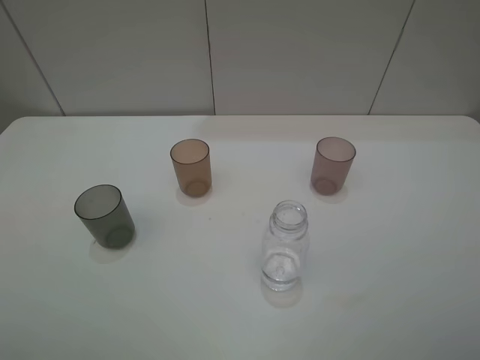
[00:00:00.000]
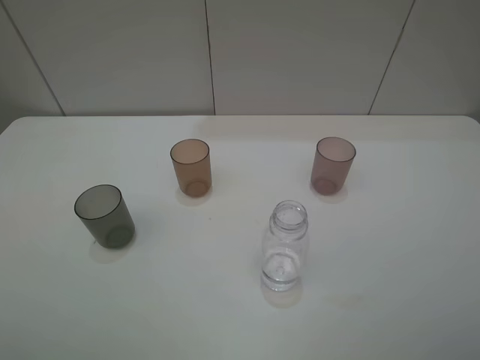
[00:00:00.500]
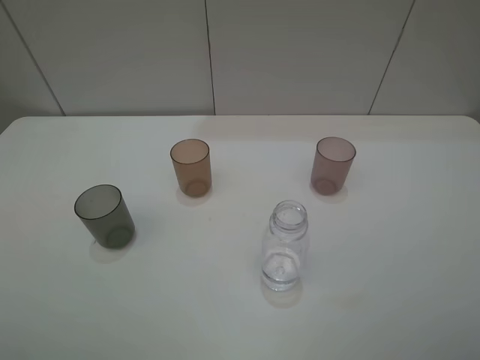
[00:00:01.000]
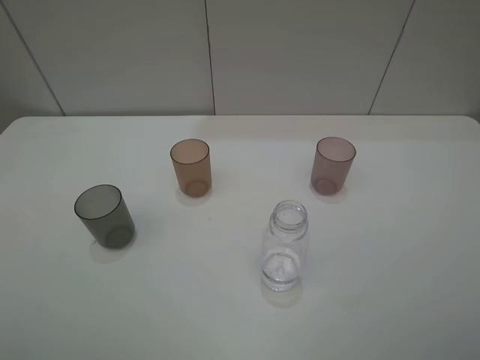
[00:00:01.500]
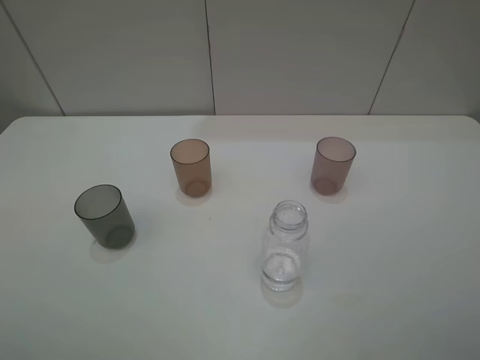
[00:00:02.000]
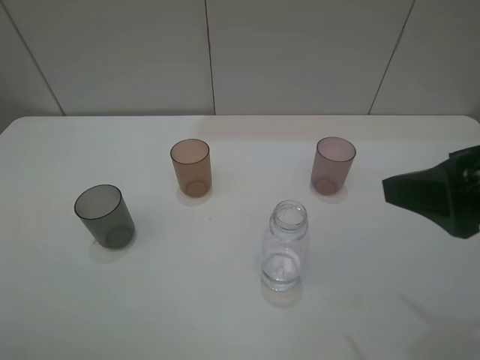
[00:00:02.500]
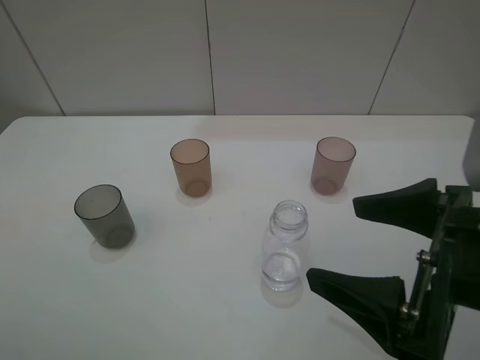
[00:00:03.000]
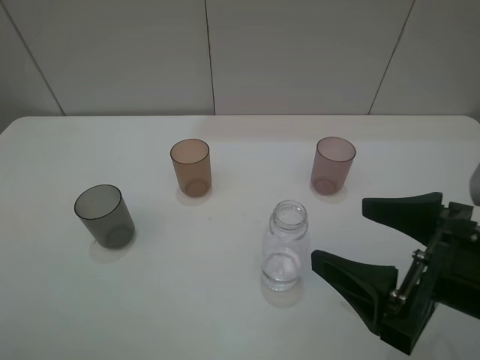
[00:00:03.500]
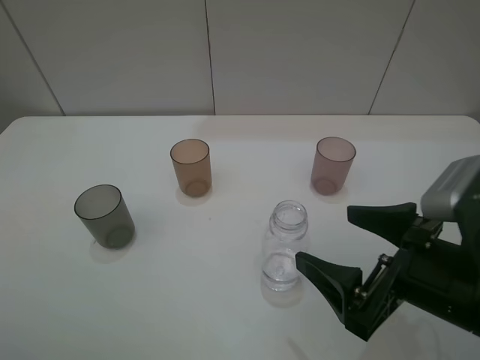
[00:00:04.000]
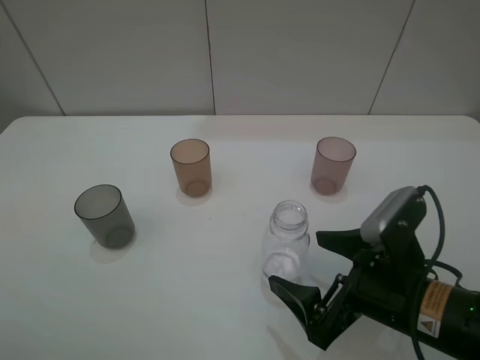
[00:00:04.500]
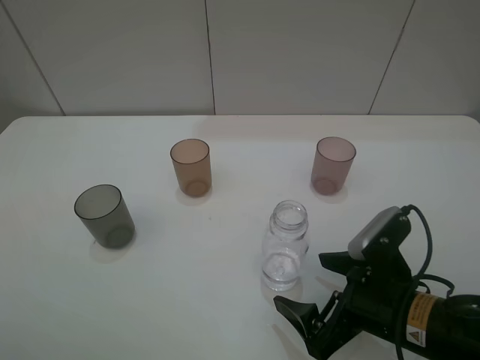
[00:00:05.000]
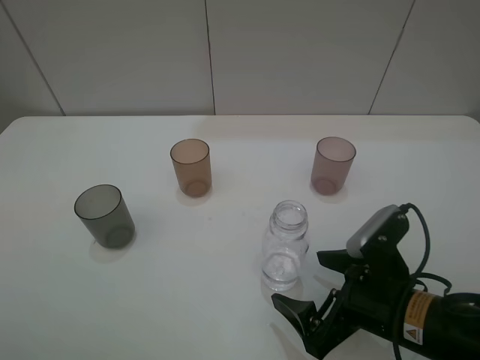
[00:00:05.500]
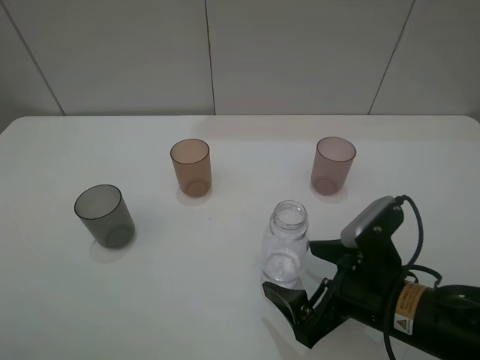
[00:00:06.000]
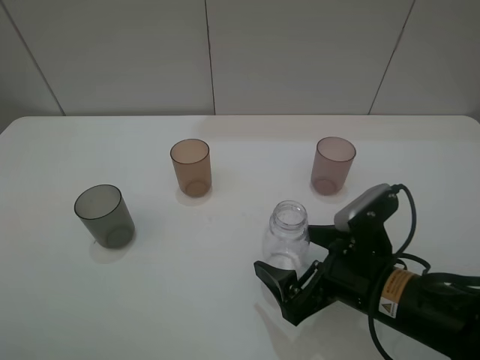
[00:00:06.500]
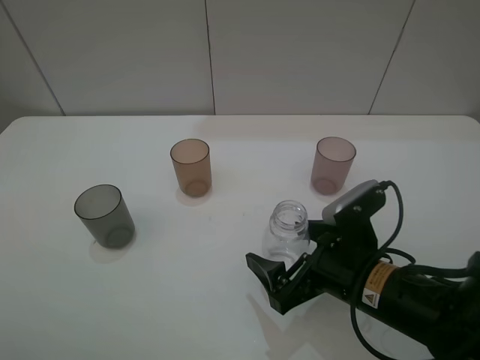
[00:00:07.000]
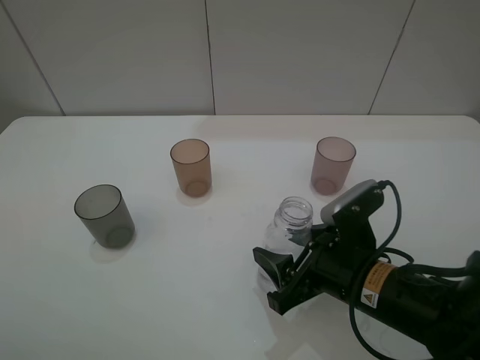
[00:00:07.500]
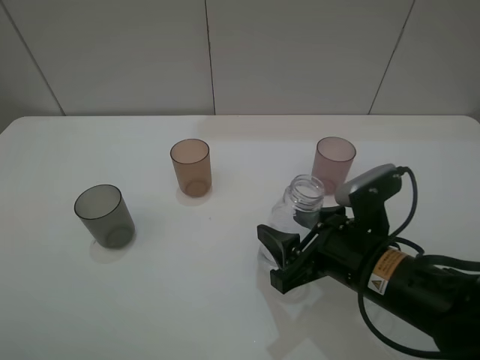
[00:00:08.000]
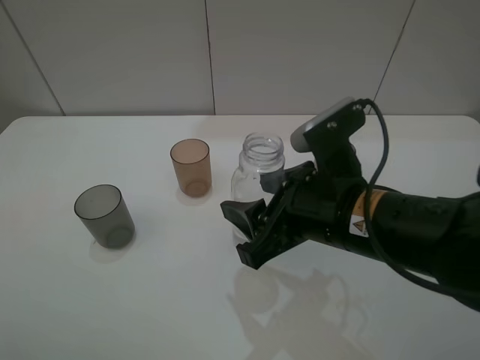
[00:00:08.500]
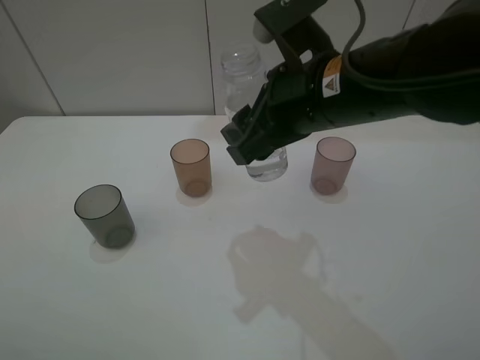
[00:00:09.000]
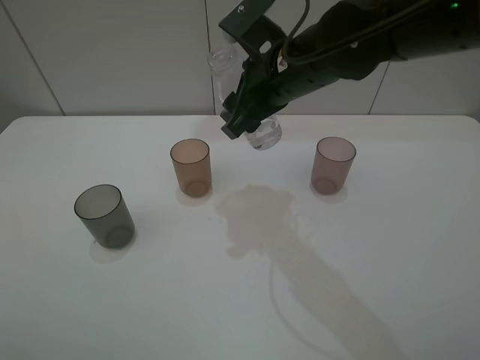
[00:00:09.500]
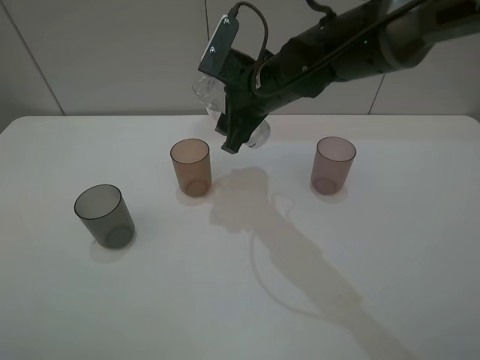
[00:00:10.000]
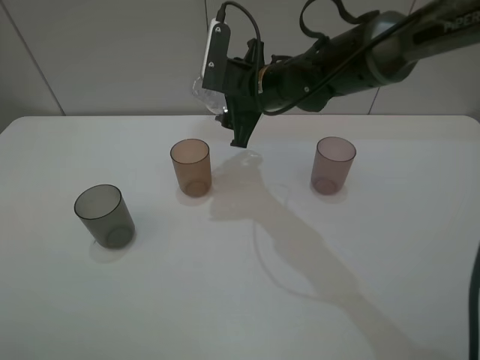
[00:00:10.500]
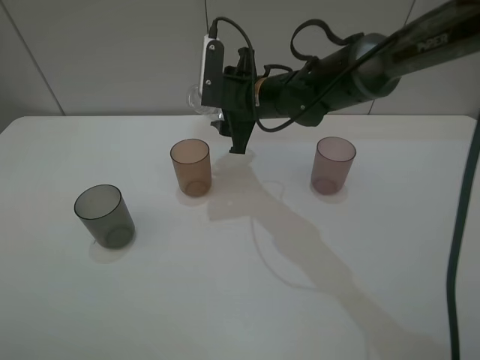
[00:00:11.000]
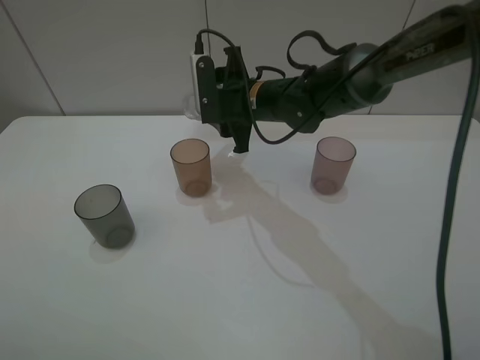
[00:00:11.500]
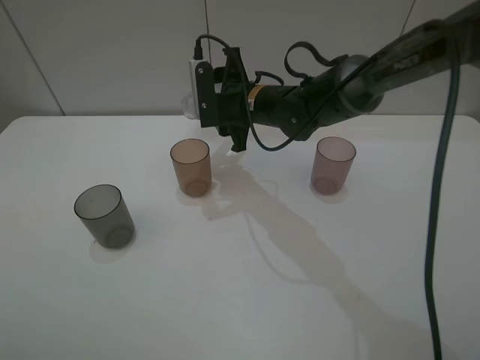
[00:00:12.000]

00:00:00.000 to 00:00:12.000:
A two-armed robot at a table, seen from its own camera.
Task of the whole recording: pick up the bottle filled with water and pour water into the middle cup of the three cups.
Step, 00:00:00.000 to 00:00:07.500: Grasp the transparent bottle with the right gripper.
00:00:02.000 to 00:00:04.000: The right gripper goes about 15 cm downward and to the left.
00:00:04.000 to 00:00:06.000: The right gripper travels downward by some 5 cm.
00:00:06.000 to 00:00:08.000: The right gripper closes up.
00:00:08.000 to 00:00:10.000: The right gripper travels forward, to the left and upward by some 25 cm.
00:00:10.000 to 00:00:12.000: The right gripper changes place by some 5 cm.

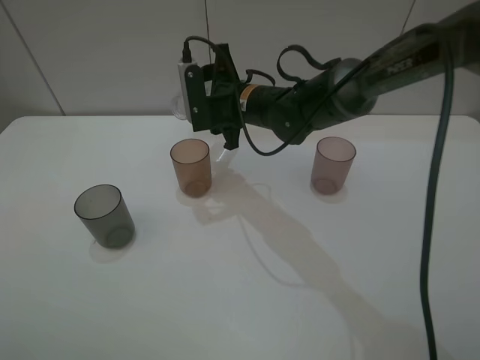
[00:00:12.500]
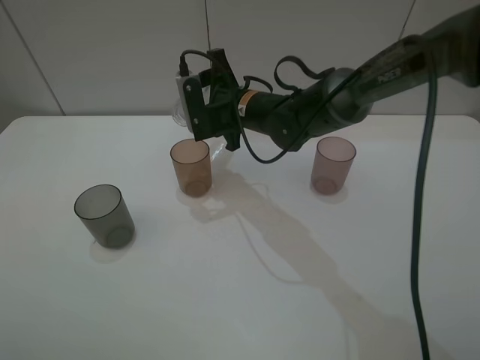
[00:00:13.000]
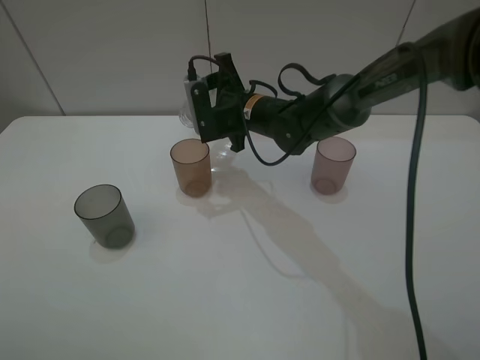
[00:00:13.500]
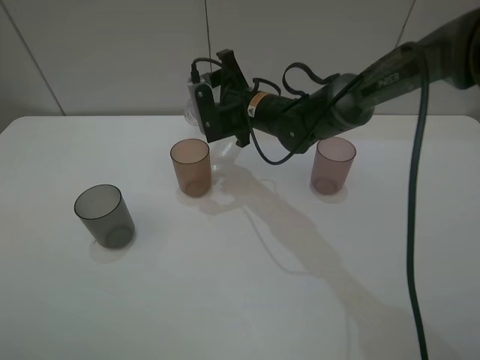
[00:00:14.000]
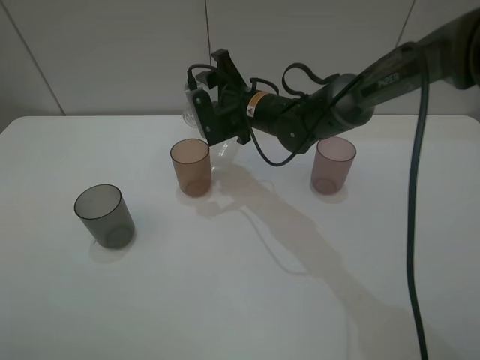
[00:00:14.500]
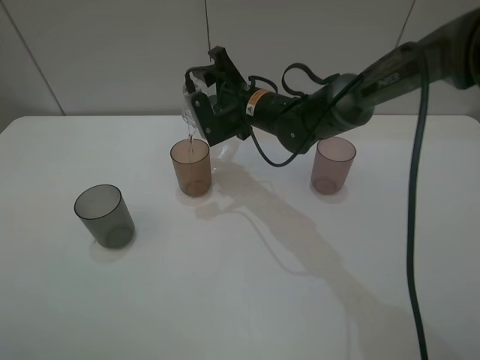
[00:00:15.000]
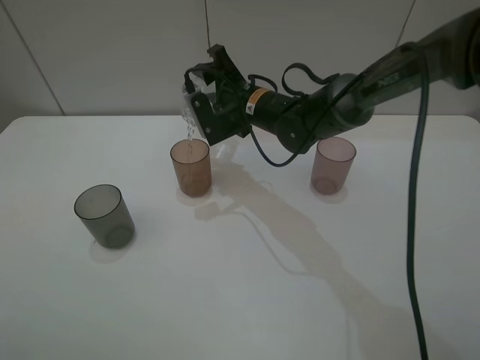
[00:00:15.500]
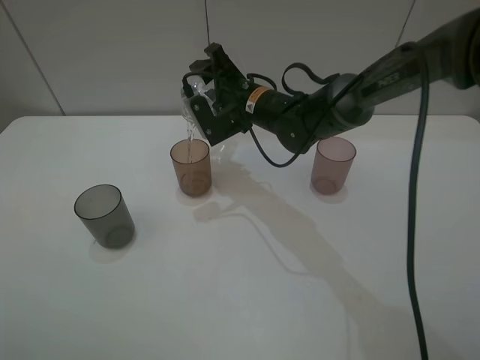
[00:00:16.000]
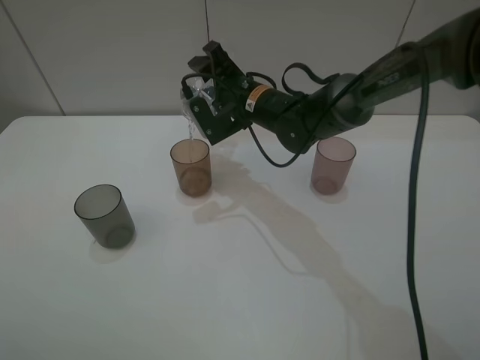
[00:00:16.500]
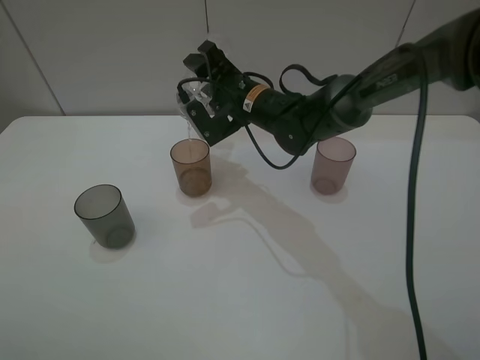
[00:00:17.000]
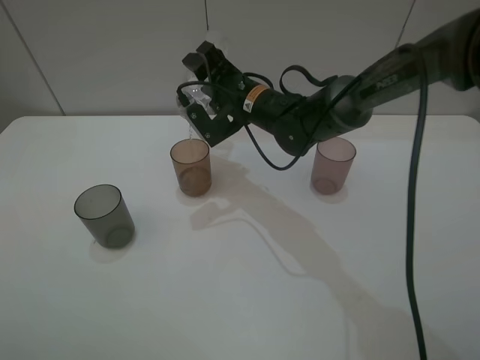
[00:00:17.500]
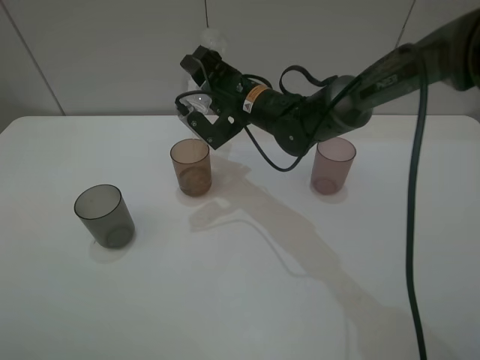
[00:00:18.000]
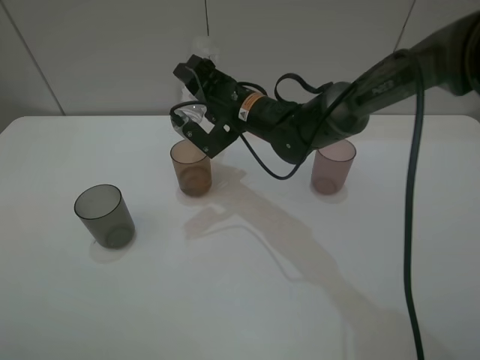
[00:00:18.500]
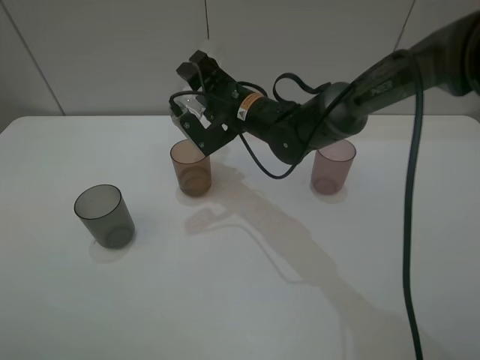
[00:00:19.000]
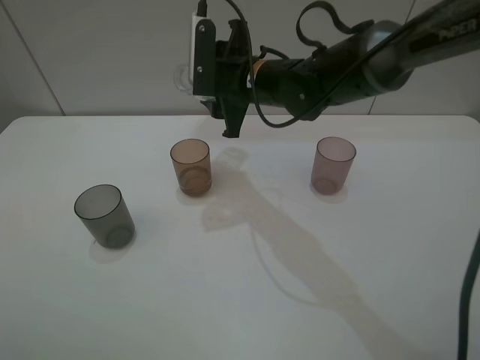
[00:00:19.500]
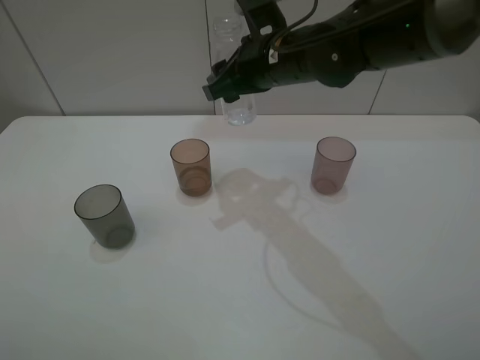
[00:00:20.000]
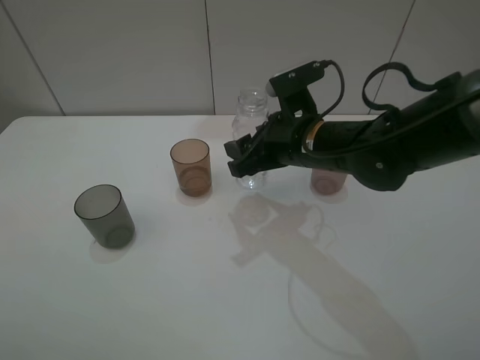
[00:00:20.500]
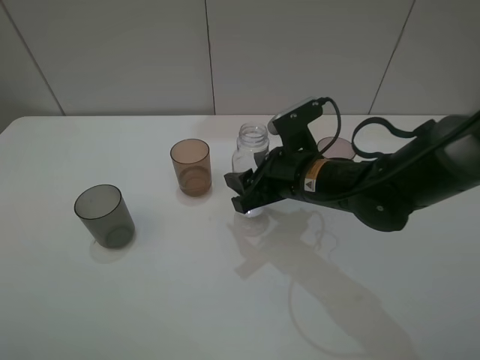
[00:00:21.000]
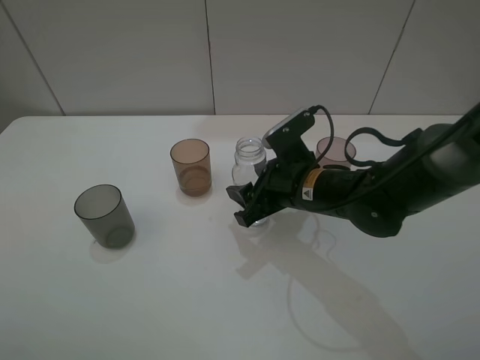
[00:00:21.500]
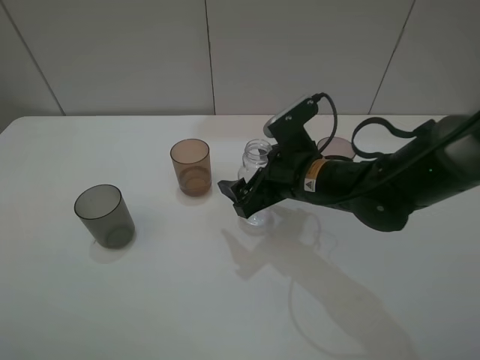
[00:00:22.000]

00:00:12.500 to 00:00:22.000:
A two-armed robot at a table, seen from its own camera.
Task of the whole recording: pick up the bottle filled with water and pour water into the middle cup of the three cups.
Step, 00:00:12.500 to 00:00:14.500: Pour water from transparent bottle tobrown cup with the right gripper.
00:00:12.500 to 00:00:14.500: The grippers move only a little.
00:00:14.500 to 00:00:16.500: The grippers make only small movements.
00:00:16.500 to 00:00:18.000: The grippers stay close to where they were, moving slightly.
00:00:18.000 to 00:00:20.000: The right gripper shifts roughly 10 cm upward.
00:00:20.000 to 00:00:22.000: The right gripper is displaced downward and backward by approximately 15 cm, and opens up.

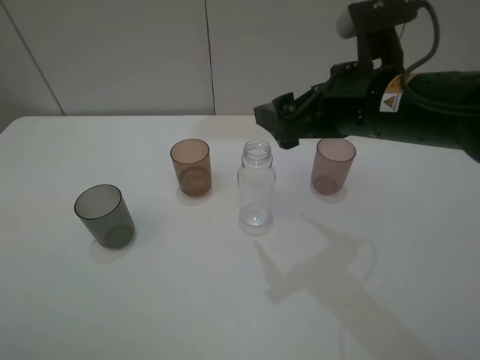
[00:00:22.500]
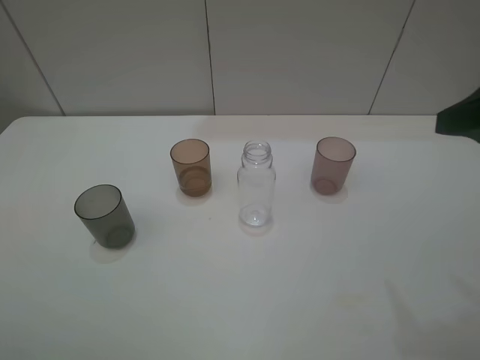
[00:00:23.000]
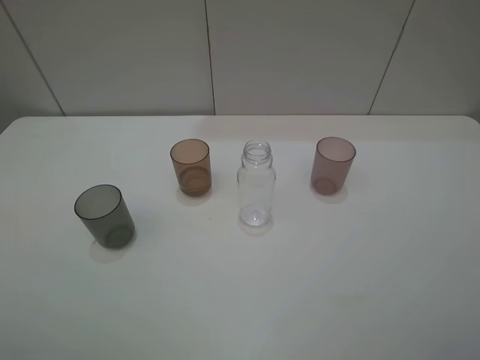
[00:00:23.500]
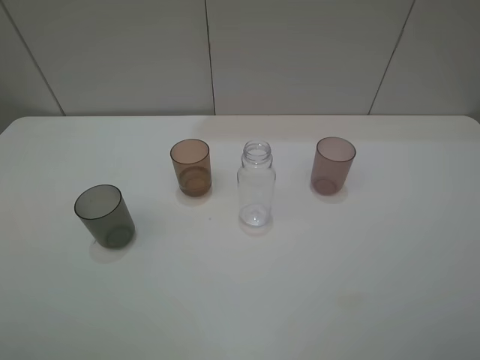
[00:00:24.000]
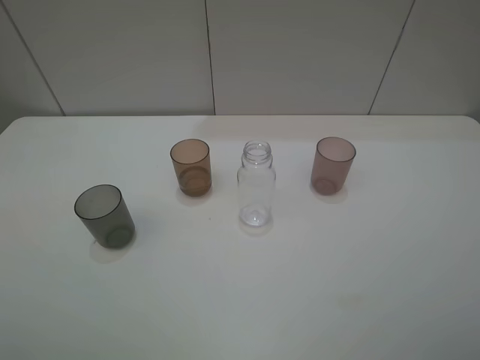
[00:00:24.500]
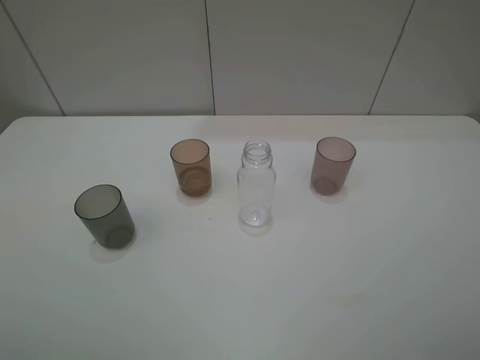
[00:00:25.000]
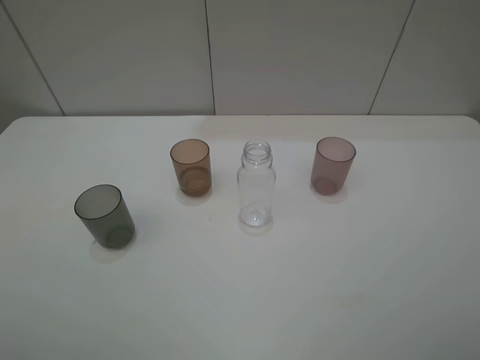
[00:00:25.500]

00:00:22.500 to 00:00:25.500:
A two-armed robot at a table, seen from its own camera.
Task of the whole recording: pick up the bottle filled with water and pour water into the middle cup of the three cups.
00:00:22.500 to 00:00:24.000: The right gripper travels backward and to the right by roughly 30 cm.
